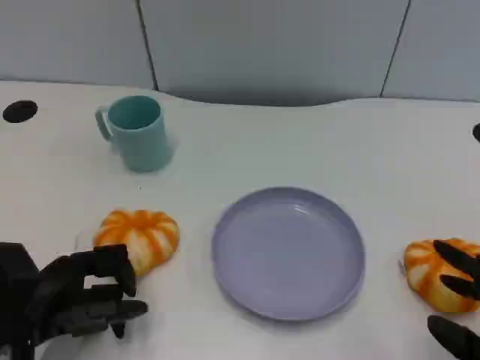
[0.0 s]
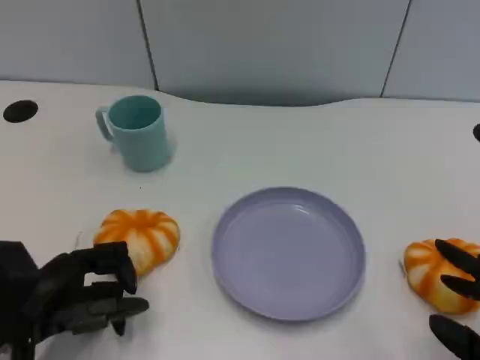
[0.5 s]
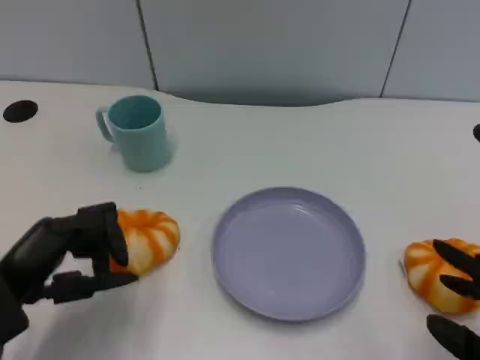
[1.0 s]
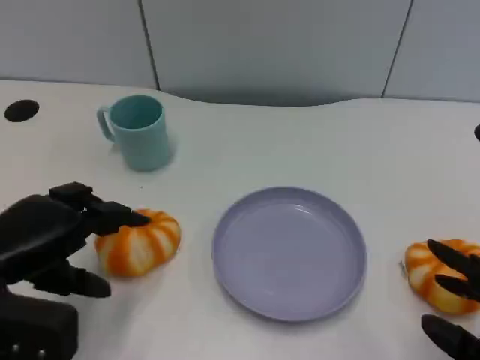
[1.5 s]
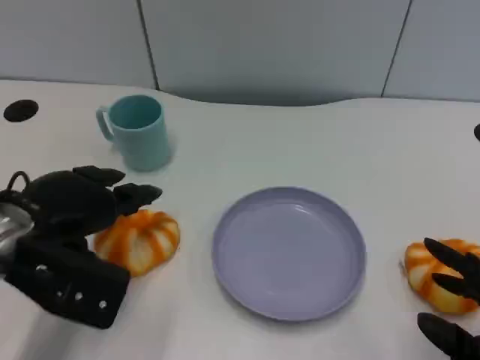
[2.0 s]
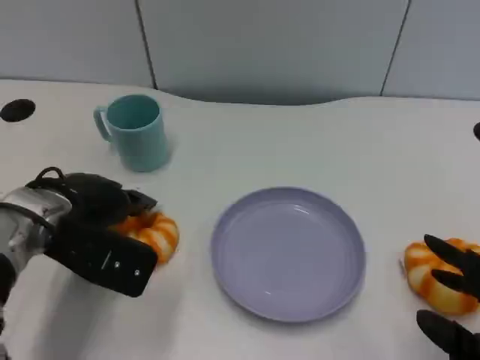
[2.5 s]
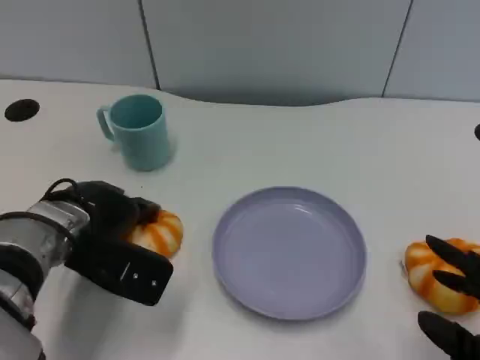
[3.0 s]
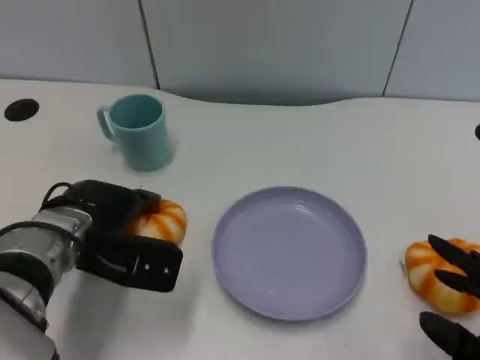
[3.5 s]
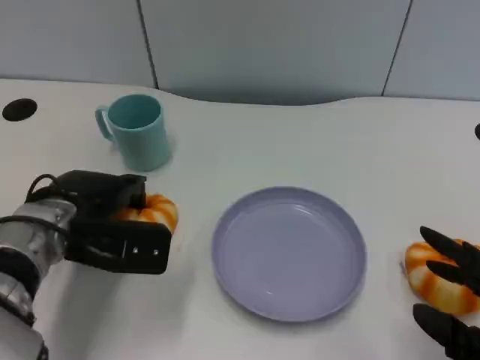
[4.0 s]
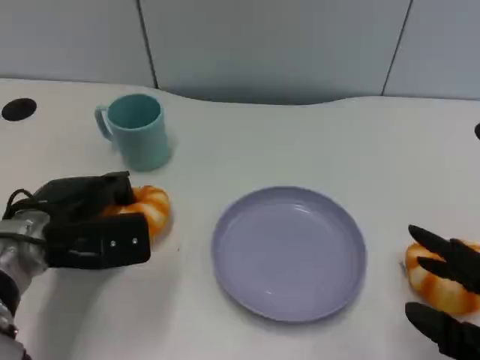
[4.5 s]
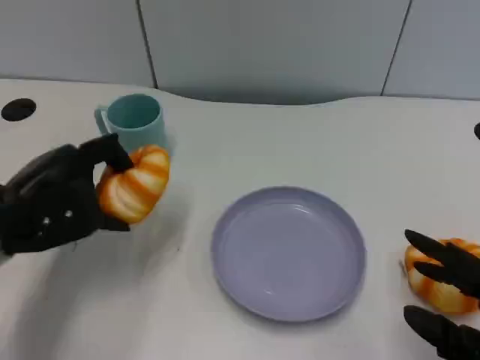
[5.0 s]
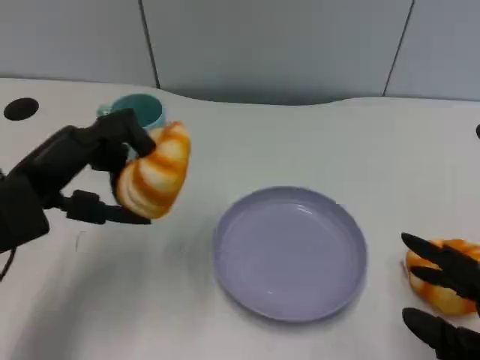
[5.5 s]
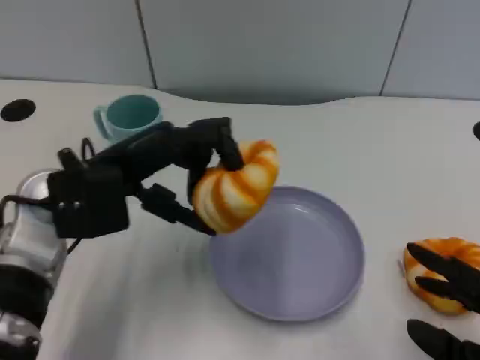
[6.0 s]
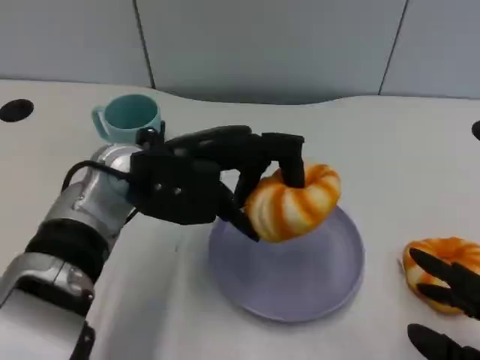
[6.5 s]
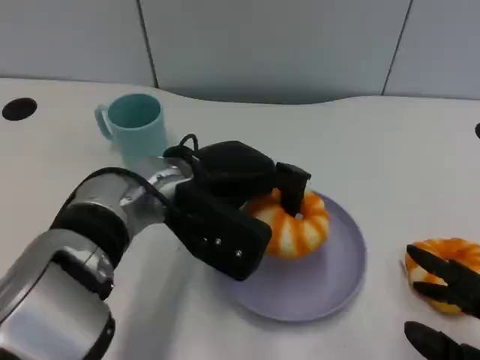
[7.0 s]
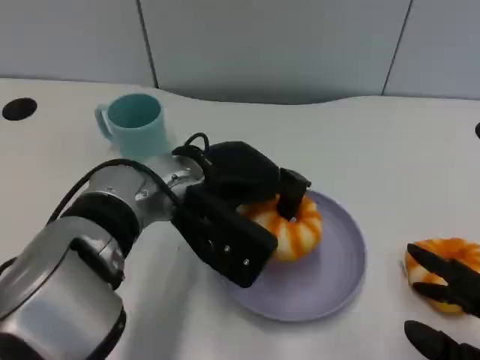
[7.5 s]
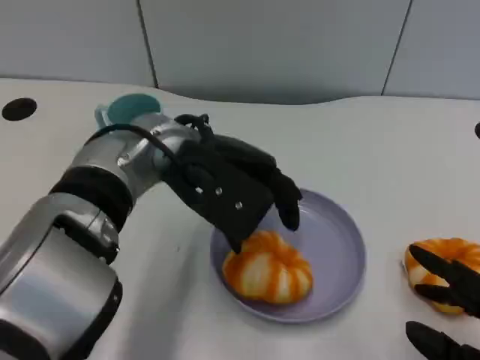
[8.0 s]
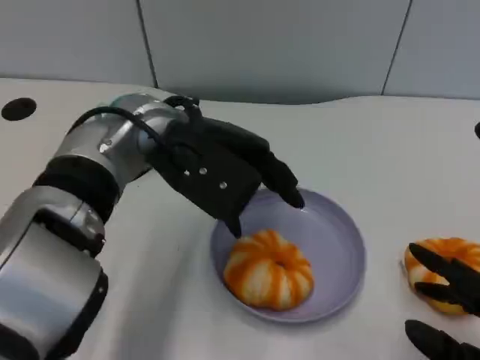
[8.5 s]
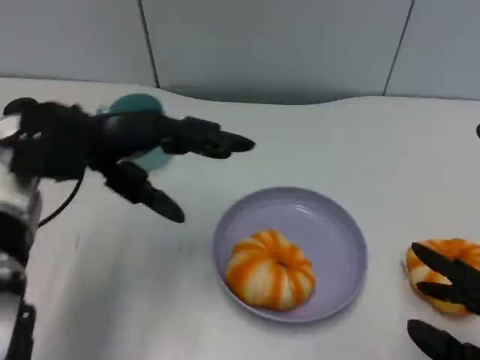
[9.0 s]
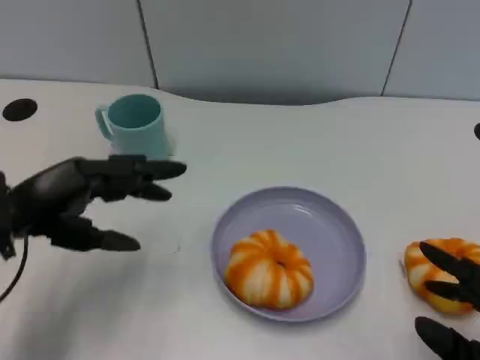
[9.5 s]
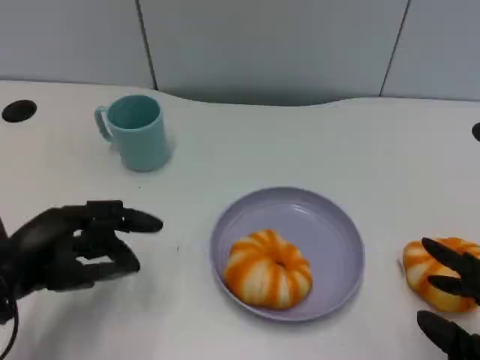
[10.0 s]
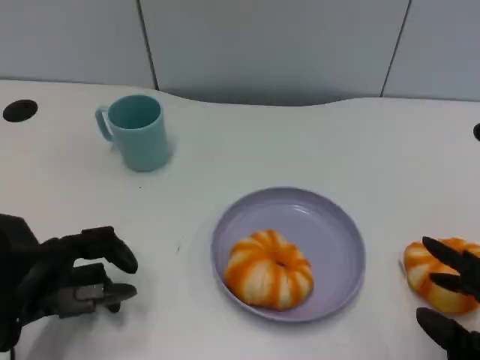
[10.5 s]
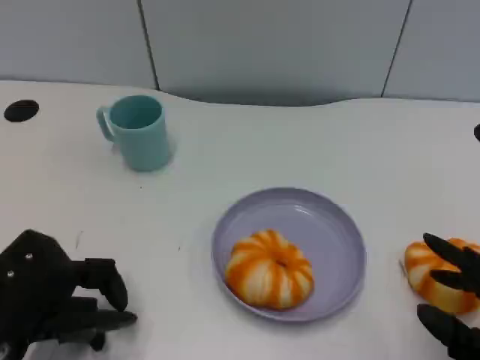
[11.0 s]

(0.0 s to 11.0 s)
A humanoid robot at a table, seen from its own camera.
Task of the whole recording: Grasp the bread from the table and place it into the plate.
0.0 s - 2.0 s: The left hand shifts approximately 10 cm upward and forward.
2.0 s - 3.5 s: The left hand shifts roughly 5 cm downward.
3.5 s - 5.5 s: The left hand heads upward and to the left, covering approximately 10 cm.
5.5 s - 7.5 s: The left hand goes some 15 cm to the right.
7.5 s - 9.0 s: The left hand travels to the left by some 15 cm.
9.0 s - 11.0 s: The left hand shifts approximately 15 cm backward and downward.

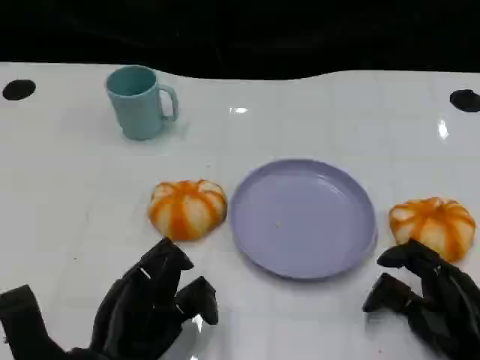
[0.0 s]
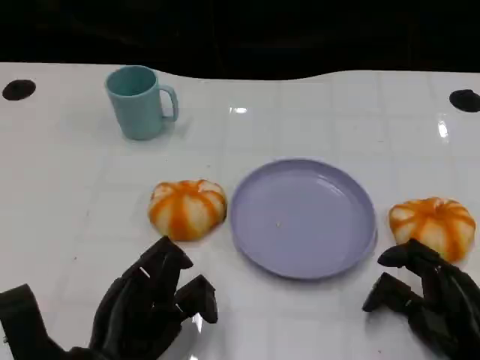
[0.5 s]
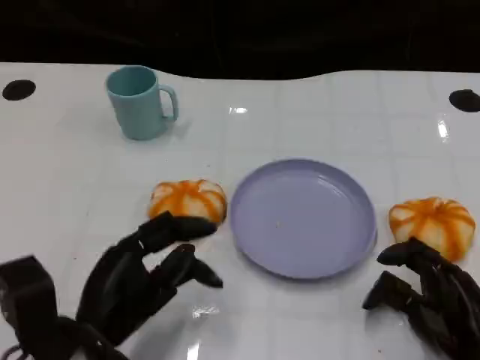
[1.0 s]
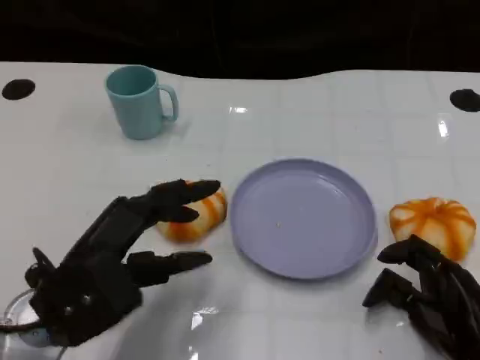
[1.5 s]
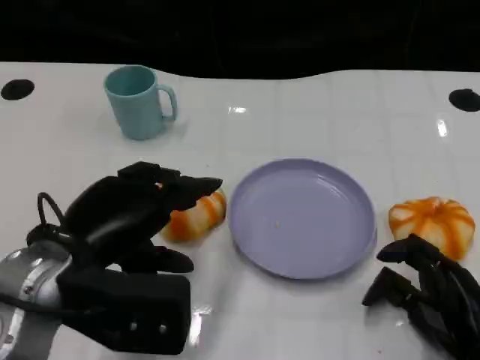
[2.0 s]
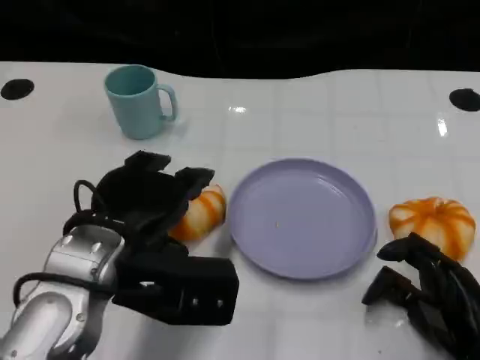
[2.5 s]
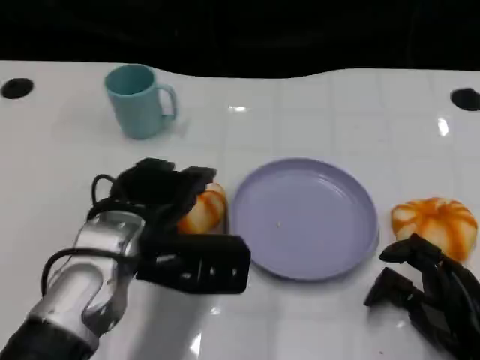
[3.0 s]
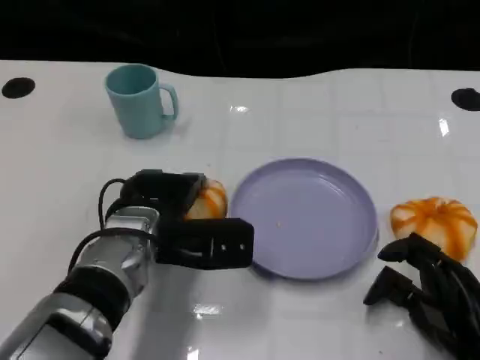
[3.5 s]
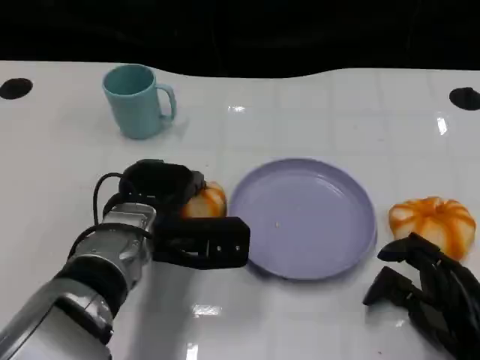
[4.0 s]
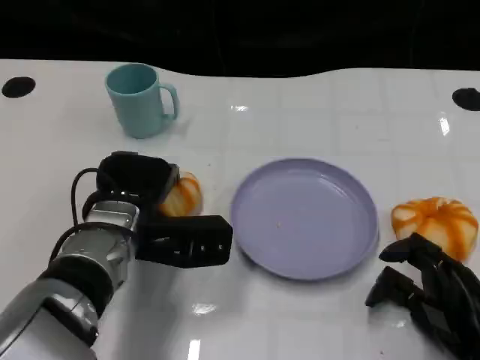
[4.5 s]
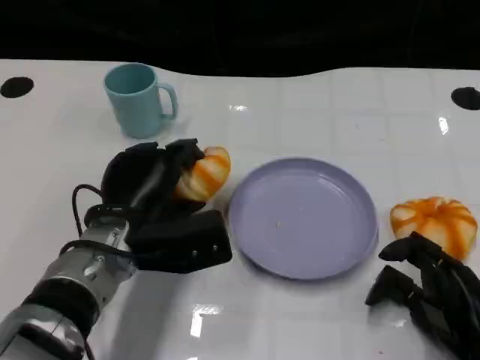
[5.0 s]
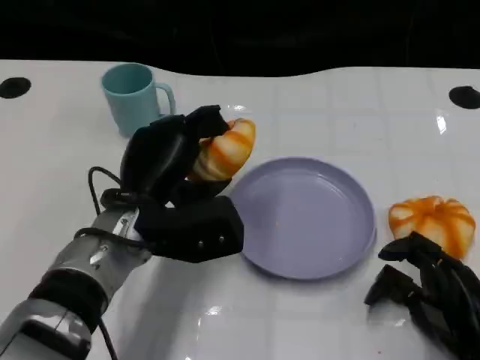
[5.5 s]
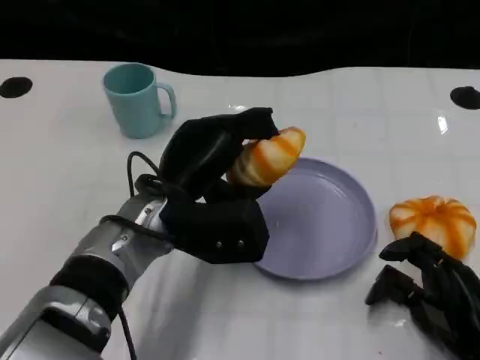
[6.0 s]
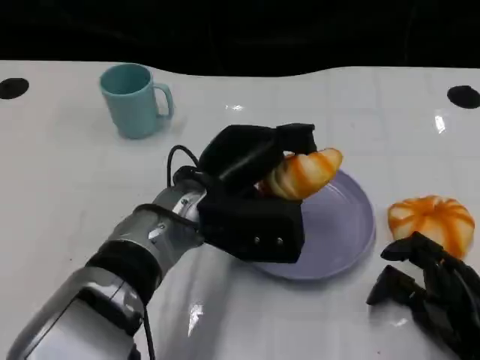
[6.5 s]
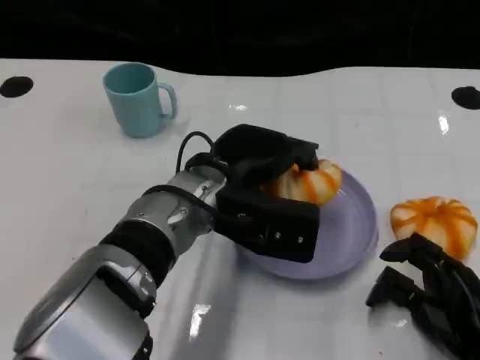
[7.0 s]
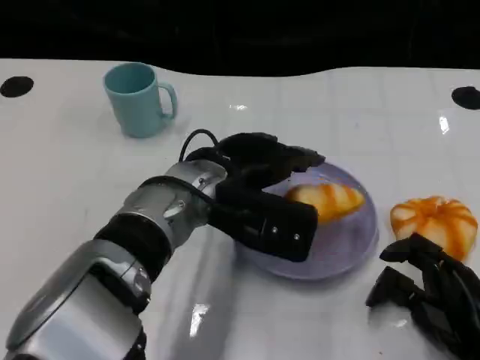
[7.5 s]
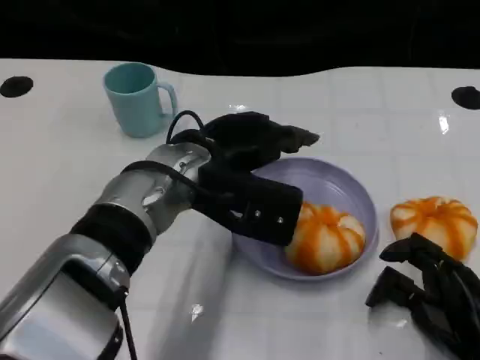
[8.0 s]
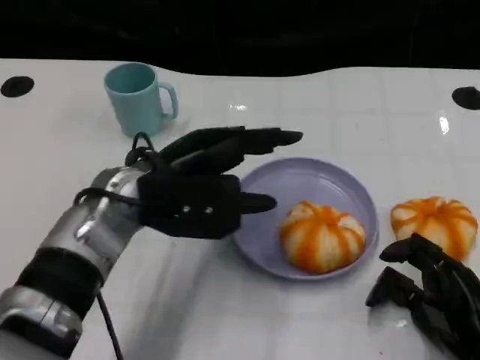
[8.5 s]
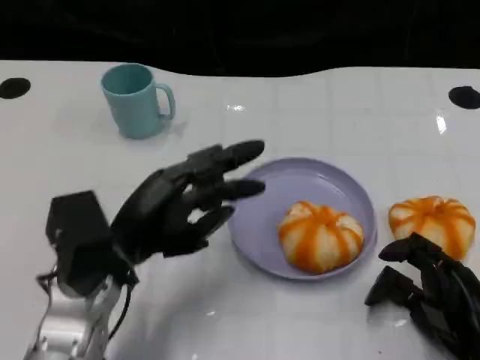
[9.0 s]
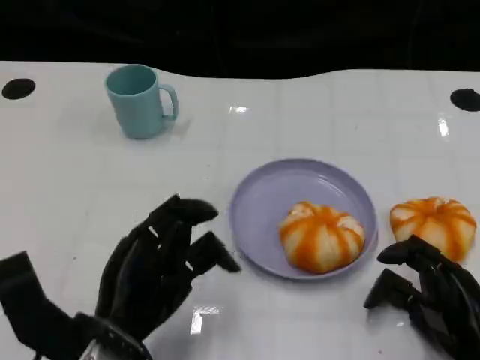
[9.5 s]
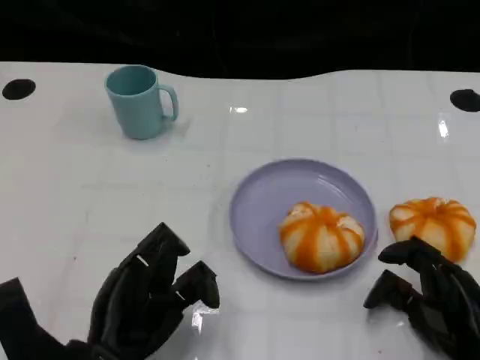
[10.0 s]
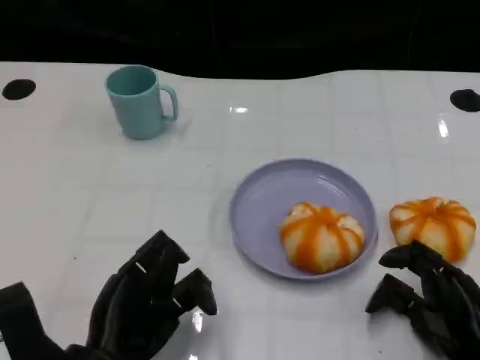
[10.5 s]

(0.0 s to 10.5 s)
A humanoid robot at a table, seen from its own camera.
Task of the whole recording: Grasp the bread from the table and place it into the plate.
0.0 s - 2.0 s: The left hand shifts some 10 cm upward.
2.0 s - 4.0 s: The left hand travels forward, downward and to the right by some 15 cm.
4.0 s - 6.5 s: The left hand heads to the right, covering some 5 cm.
6.5 s - 8.5 s: The left hand is displaced to the left by some 5 cm.
8.5 s - 10.5 s: The left hand moves backward and downward, approximately 15 cm.

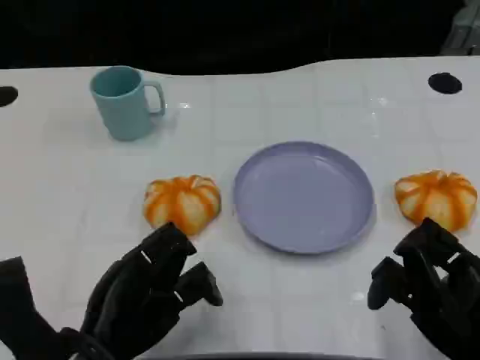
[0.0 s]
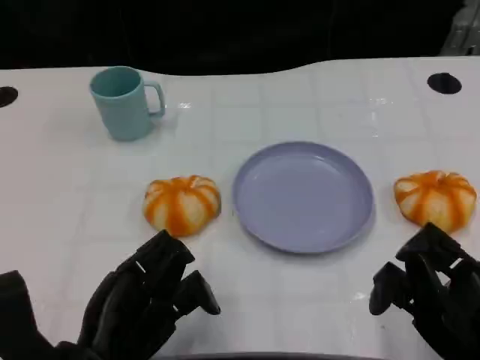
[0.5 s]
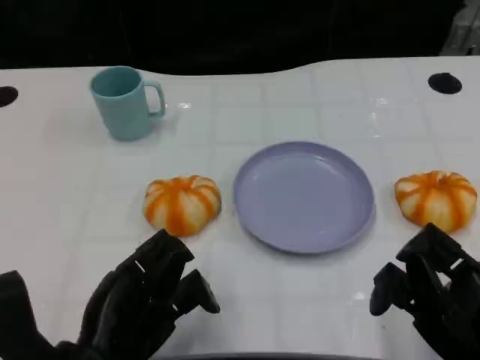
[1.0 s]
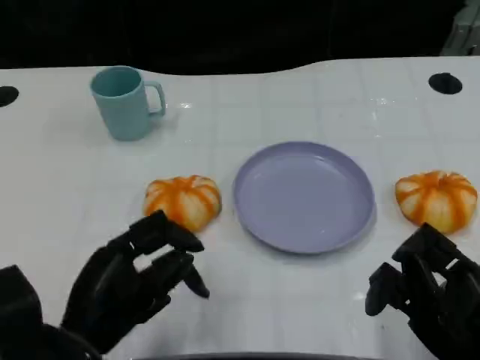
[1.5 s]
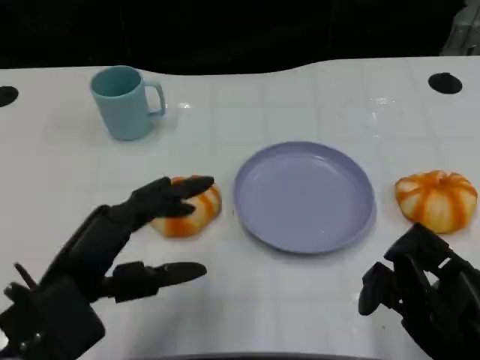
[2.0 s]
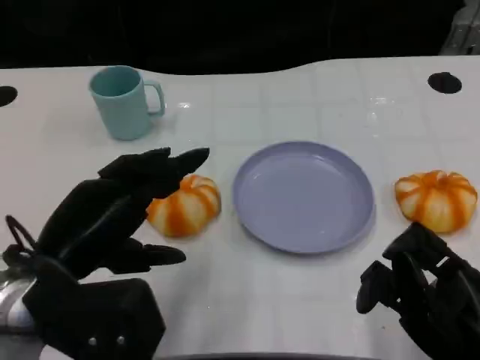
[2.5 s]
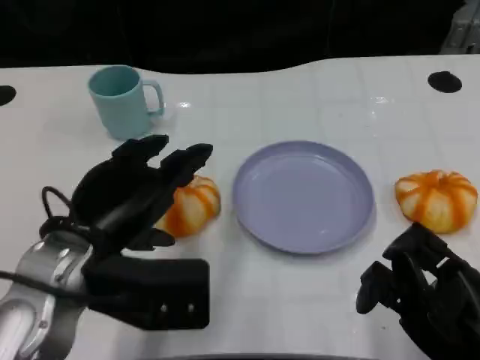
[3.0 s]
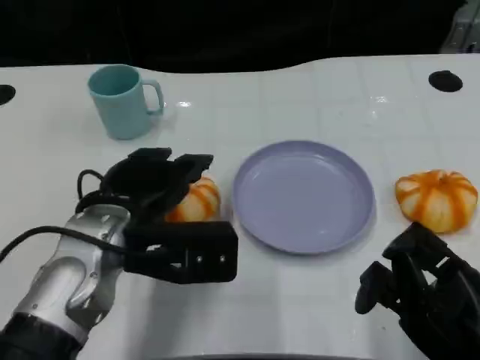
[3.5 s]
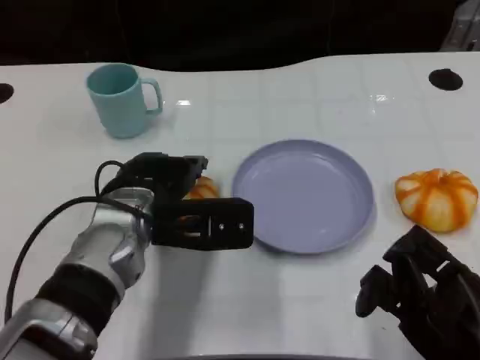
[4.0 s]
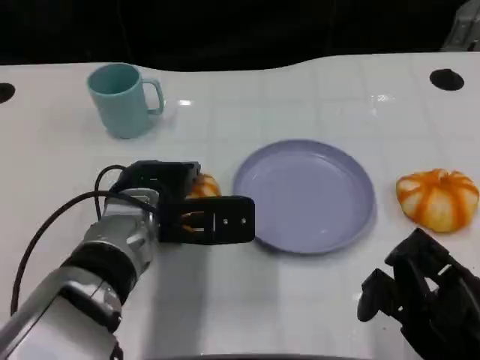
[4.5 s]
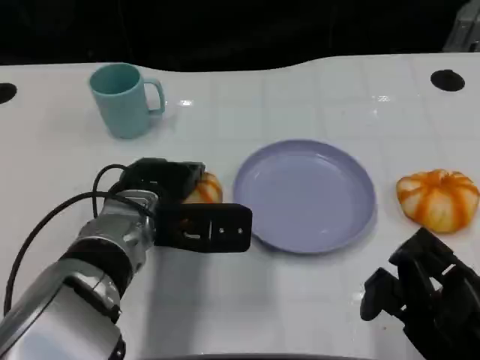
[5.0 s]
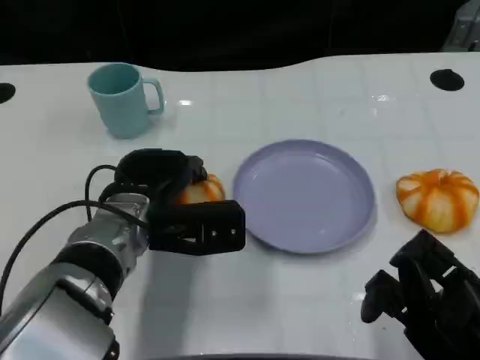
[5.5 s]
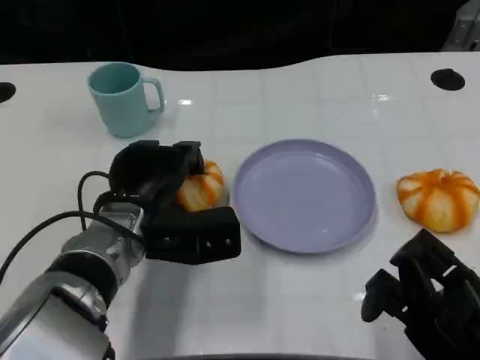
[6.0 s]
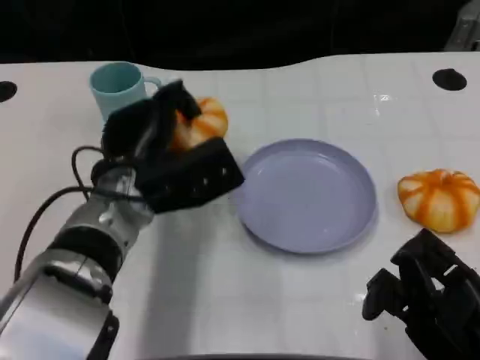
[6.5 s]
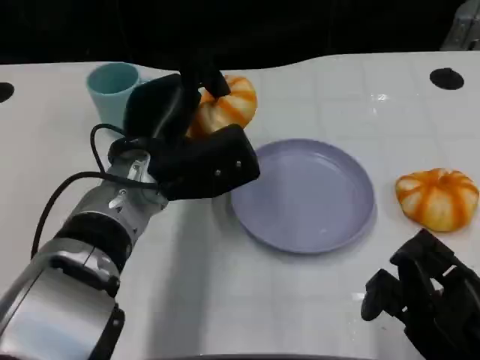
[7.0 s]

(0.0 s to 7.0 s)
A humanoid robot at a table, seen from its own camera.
Task of the whole recording: Grasp the bread from the table and place it into the plate.
0.0 s - 2.0 s: The left hand goes about 5 cm upward.
2.0 s - 3.5 s: The left hand moves forward and to the right, roughly 10 cm.
3.5 s - 5.0 s: The left hand changes place by approximately 5 cm.
